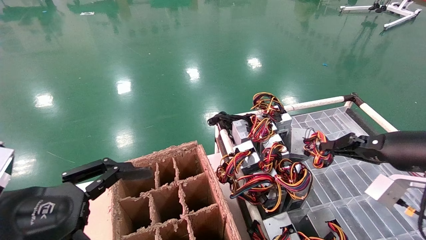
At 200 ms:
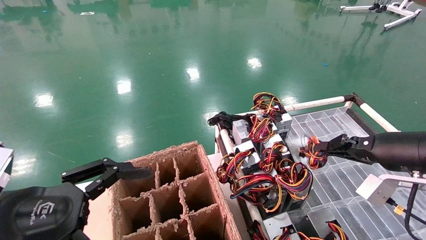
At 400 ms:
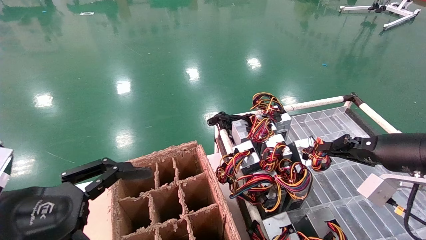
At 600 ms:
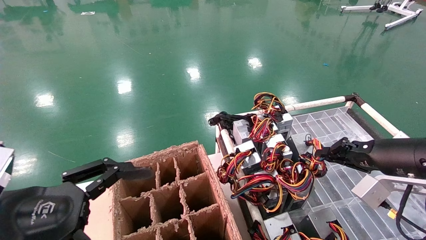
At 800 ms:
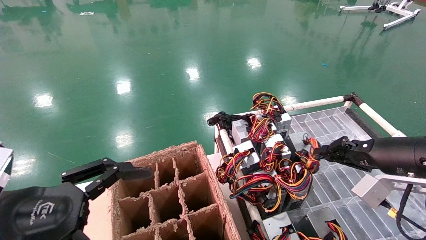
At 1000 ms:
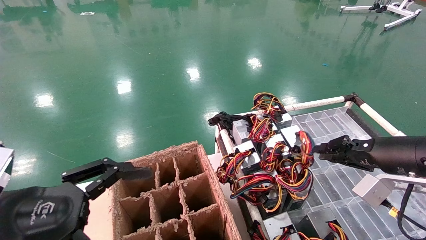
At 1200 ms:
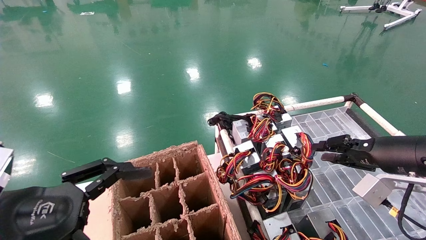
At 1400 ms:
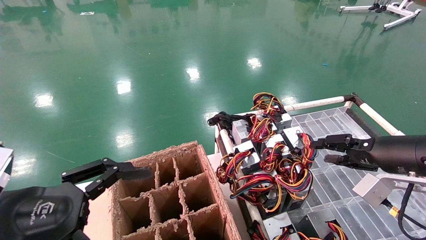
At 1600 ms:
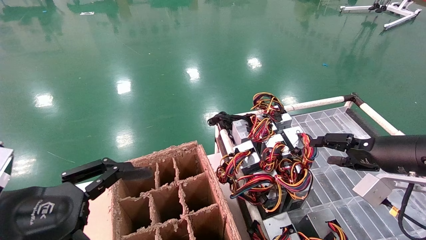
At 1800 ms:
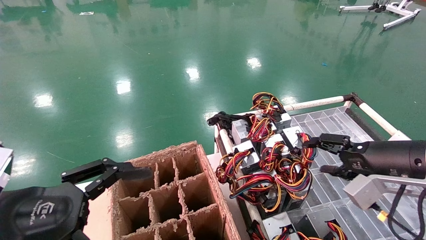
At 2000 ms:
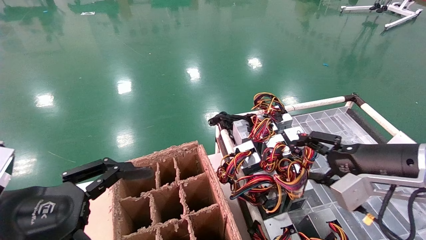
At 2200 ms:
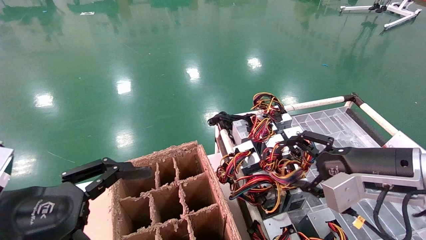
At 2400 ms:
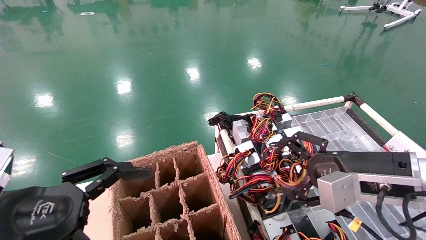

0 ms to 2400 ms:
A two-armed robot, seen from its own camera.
0 ms to 1200 ms: There are only small adjustments of the grippers.
1200 ms to 2400 ms: The right gripper goes some 10 cm to the left, and opens its fingers.
